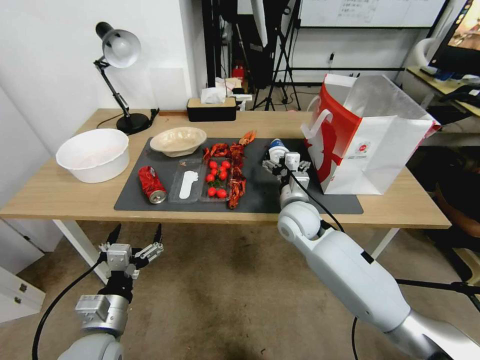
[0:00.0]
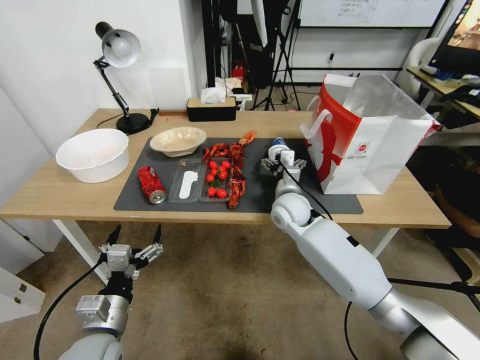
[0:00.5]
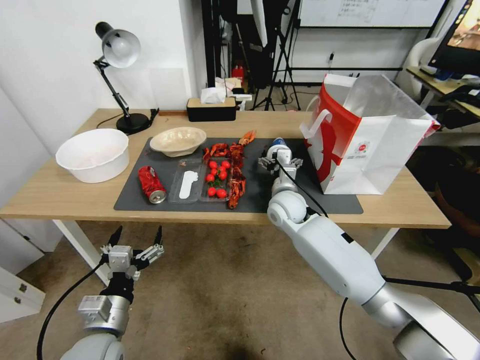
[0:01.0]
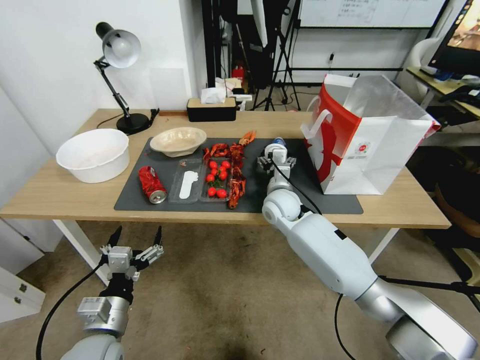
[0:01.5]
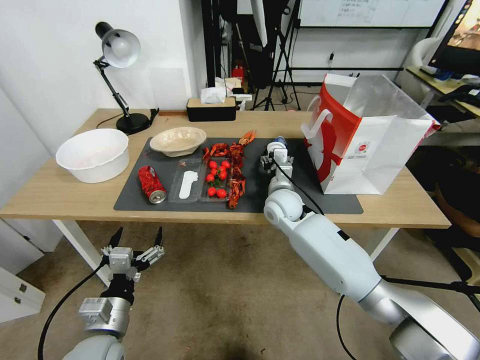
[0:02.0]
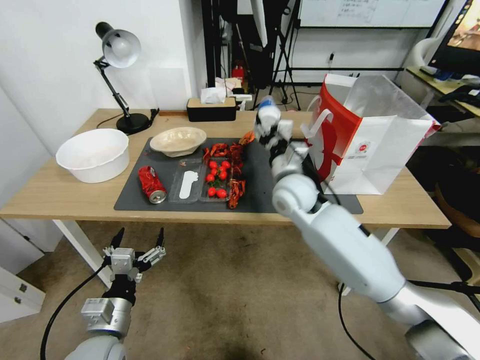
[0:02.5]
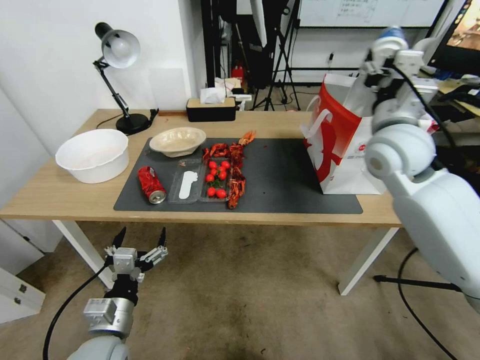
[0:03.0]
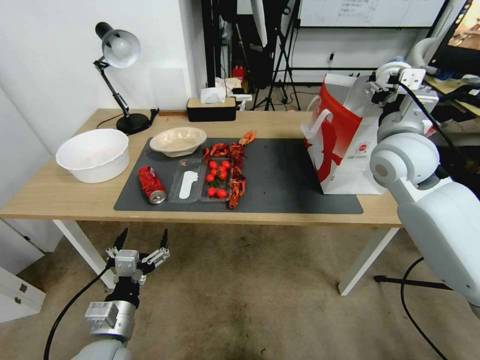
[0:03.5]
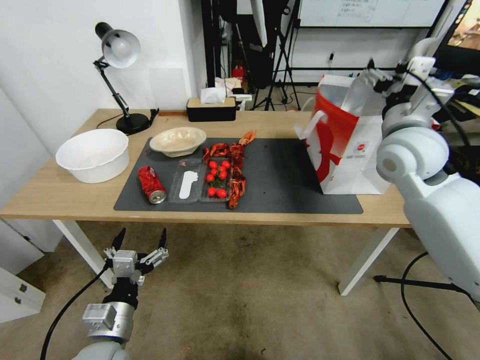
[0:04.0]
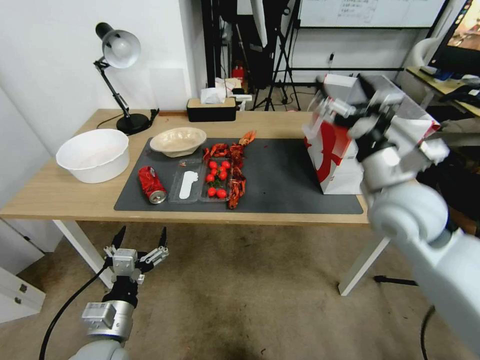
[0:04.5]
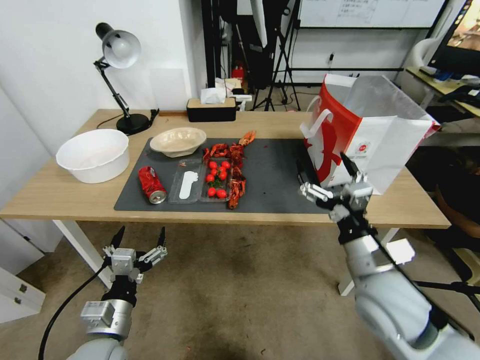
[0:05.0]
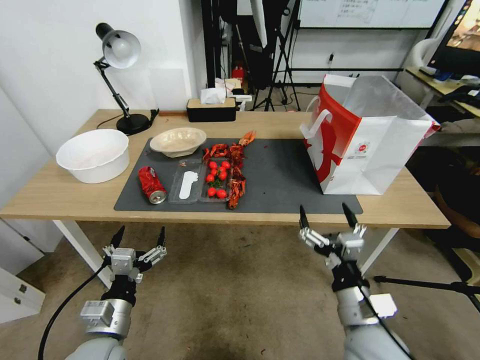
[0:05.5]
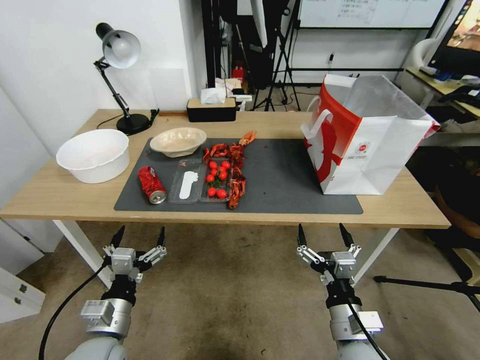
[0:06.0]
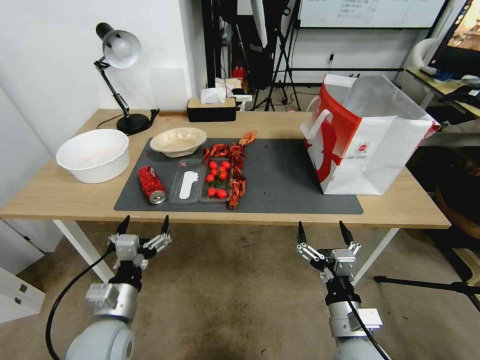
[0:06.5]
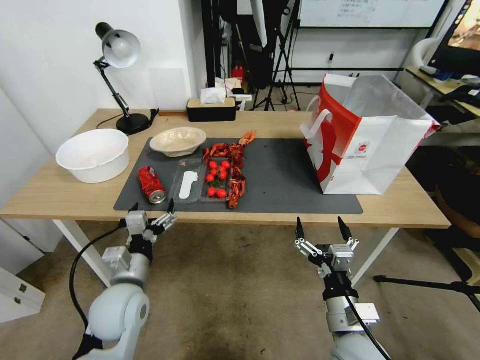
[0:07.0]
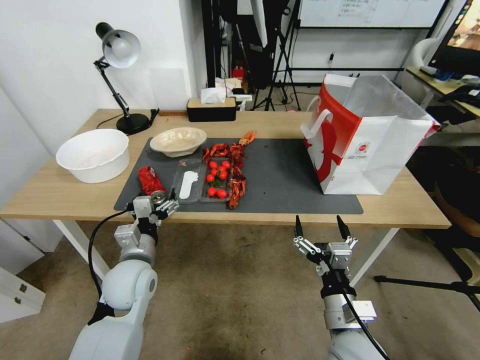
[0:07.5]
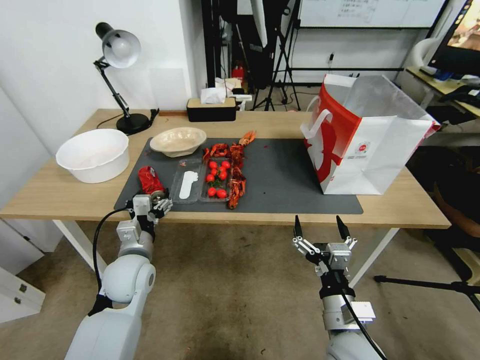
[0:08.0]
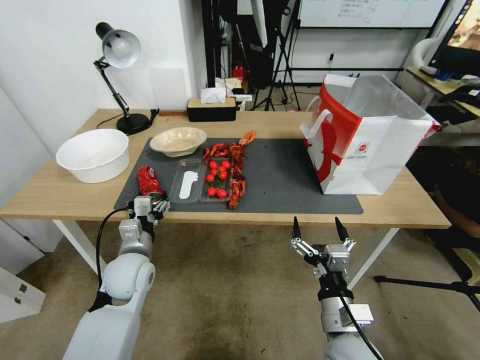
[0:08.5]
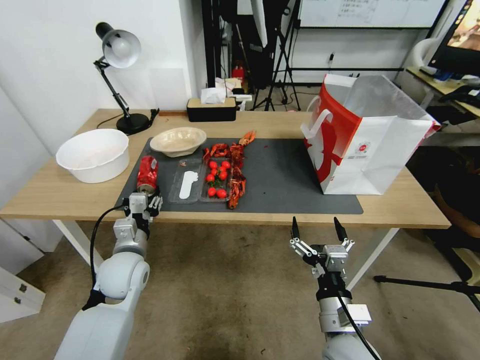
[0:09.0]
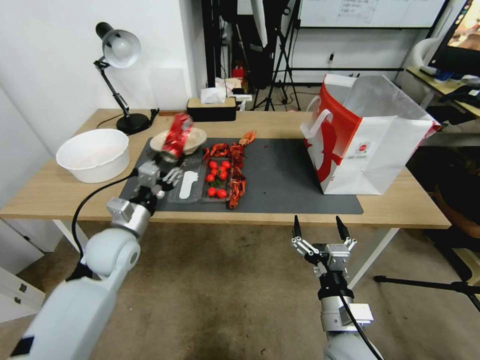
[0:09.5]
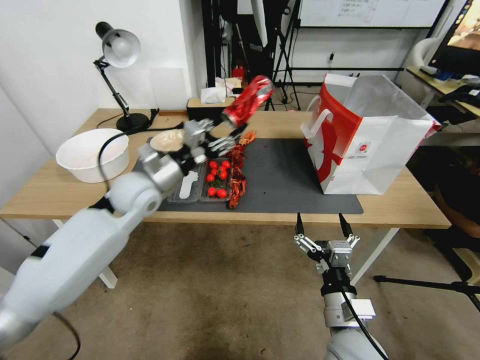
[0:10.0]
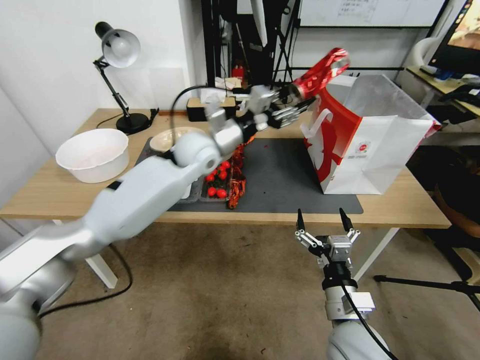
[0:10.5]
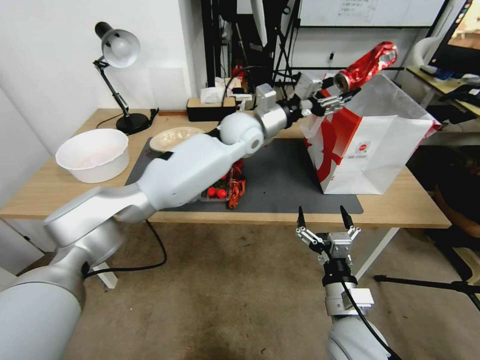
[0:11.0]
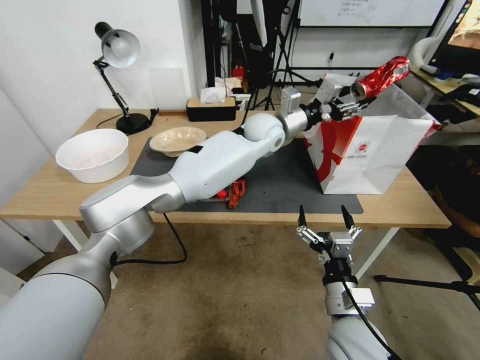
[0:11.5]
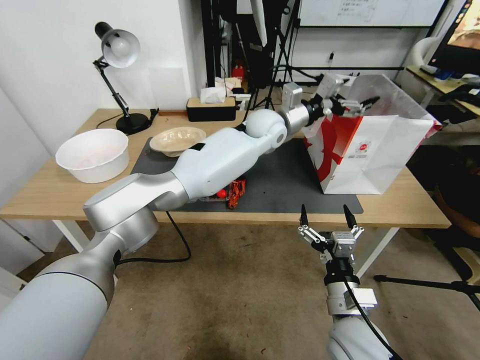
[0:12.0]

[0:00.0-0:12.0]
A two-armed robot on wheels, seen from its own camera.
0:00.0 to 0:02.0: The right gripper is displaced forward by approximately 5 cm, and closes up.
0:02.0 to 0:04.0: The right gripper moves upward and to the right, about 30 cm, and opens.
0:04.0 to 0:06.0: The right gripper travels downward and backward by some 40 cm.
0:06.0 to 0:08.0: The left gripper travels forward by about 15 cm.
0:08.0 to 0:10.0: The left gripper travels upward and forward by about 20 cm.
0:10.0 to 0:12.0: The left gripper goes some 35 cm to the right and forward, and opens its fingers.

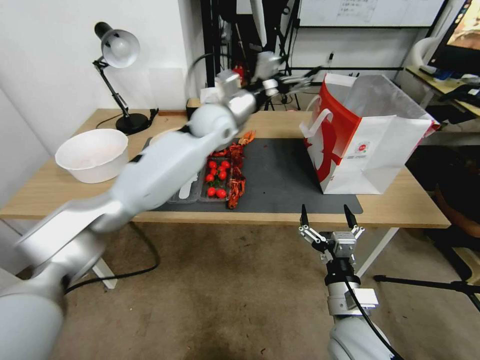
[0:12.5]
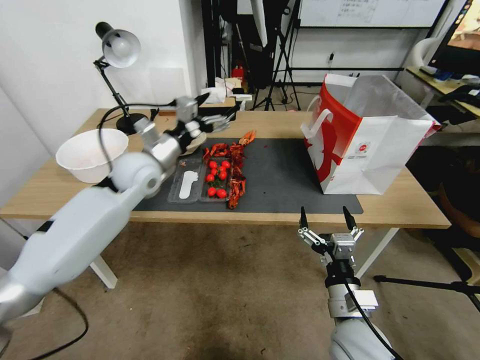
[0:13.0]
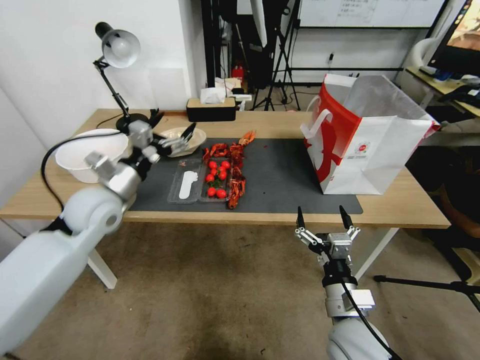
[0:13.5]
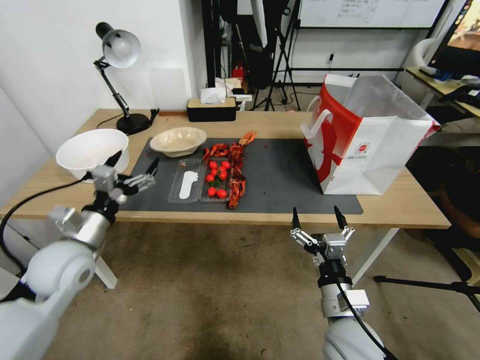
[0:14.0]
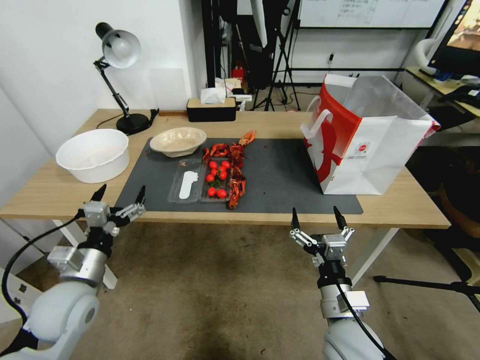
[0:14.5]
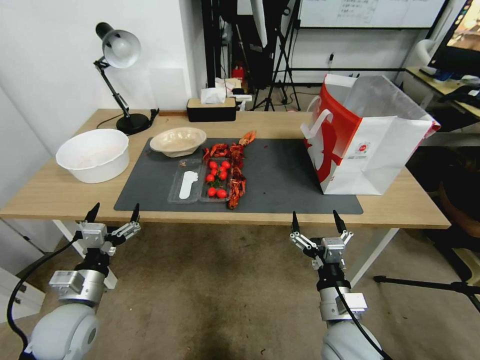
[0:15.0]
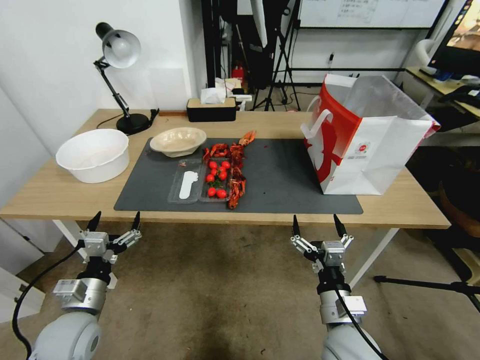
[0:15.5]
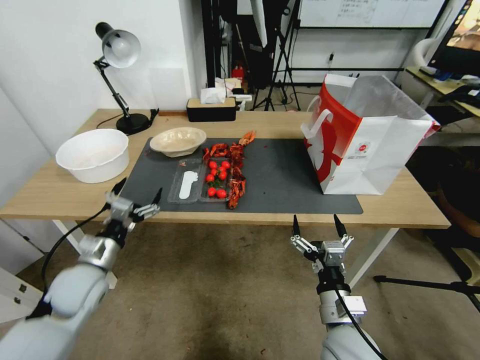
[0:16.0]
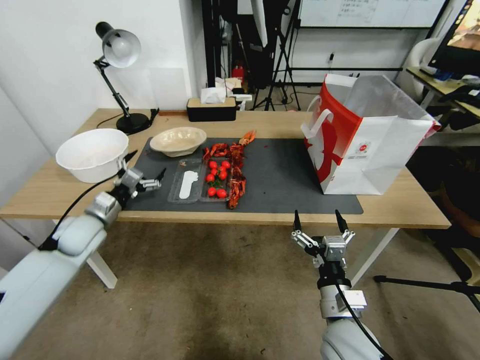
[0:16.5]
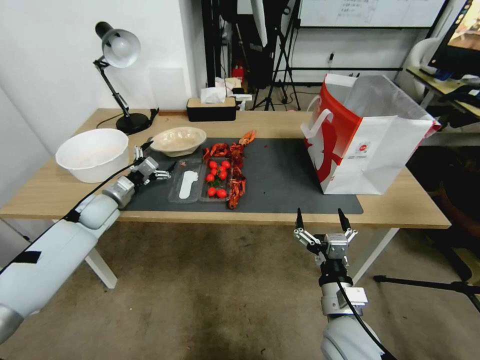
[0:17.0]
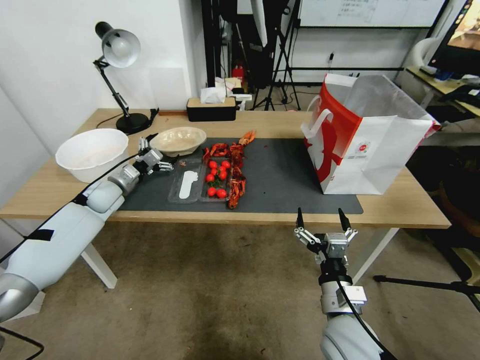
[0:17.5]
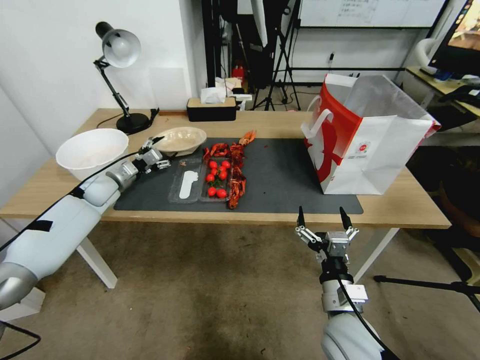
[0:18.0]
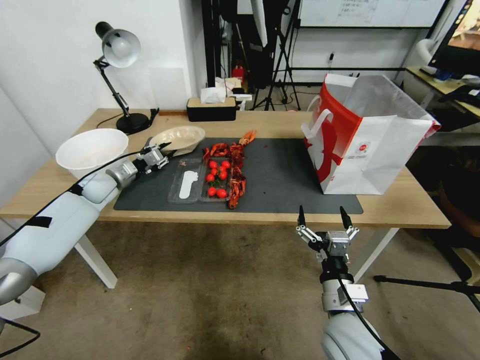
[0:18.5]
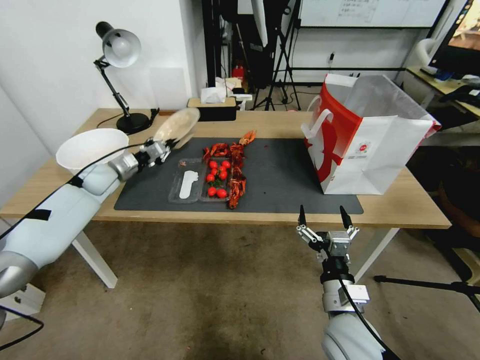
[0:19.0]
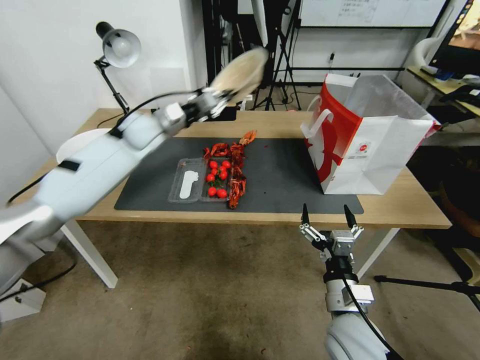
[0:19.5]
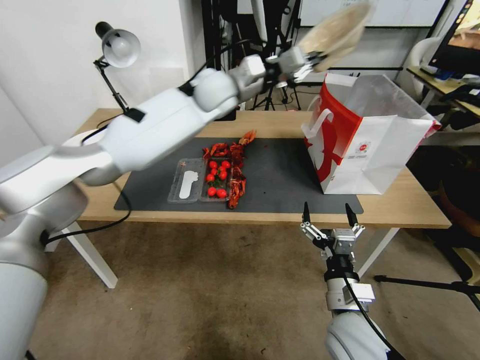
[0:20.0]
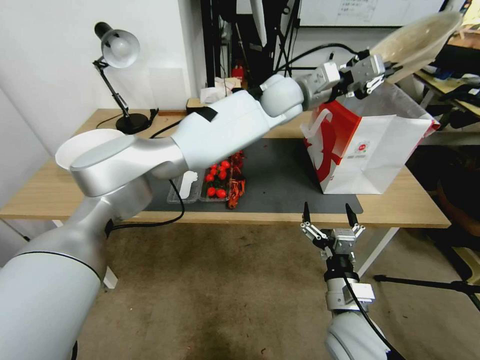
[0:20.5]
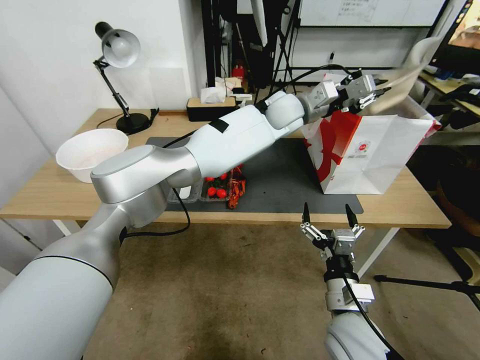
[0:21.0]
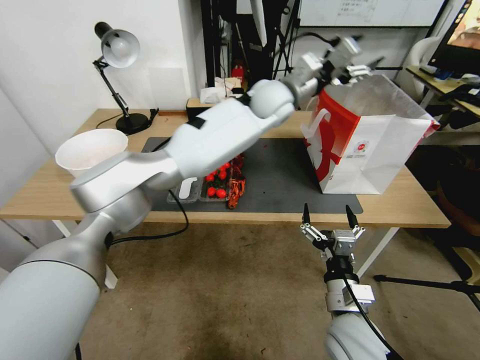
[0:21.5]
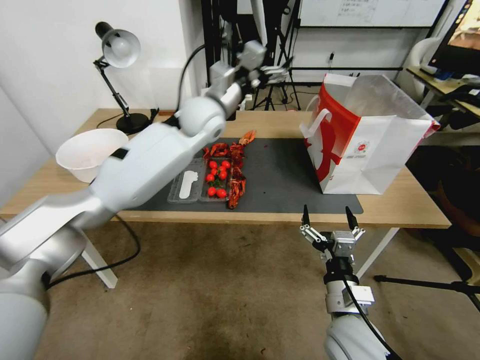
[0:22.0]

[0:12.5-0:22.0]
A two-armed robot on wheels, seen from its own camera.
0:12.5 to 0:14.5: The left gripper heads backward, to the left and downward, covering some 50 cm.
0:14.5 to 0:16.5: The left gripper shifts about 15 cm forward and to the left.
0:16.5 to 0:18.0: The left gripper heads forward, covering about 15 cm.
0:18.0 to 0:20.0: The left gripper heads to the right and upward, covering roughly 40 cm, and closes up.
0:20.0 to 0:22.0: The left gripper moves roughly 15 cm to the right and comes back, and opens up.

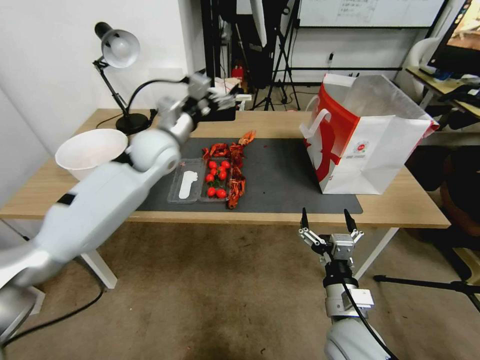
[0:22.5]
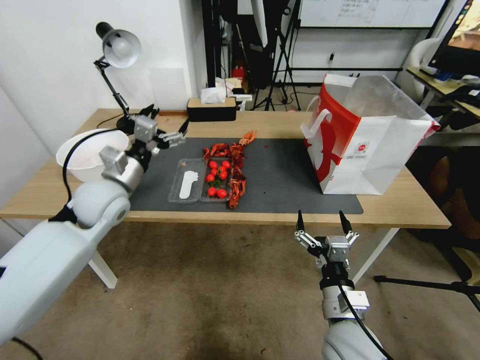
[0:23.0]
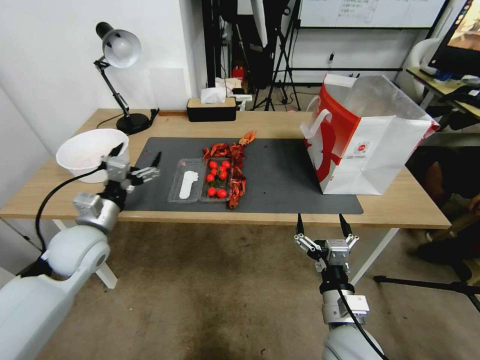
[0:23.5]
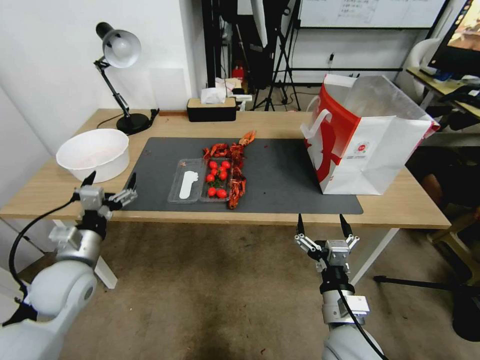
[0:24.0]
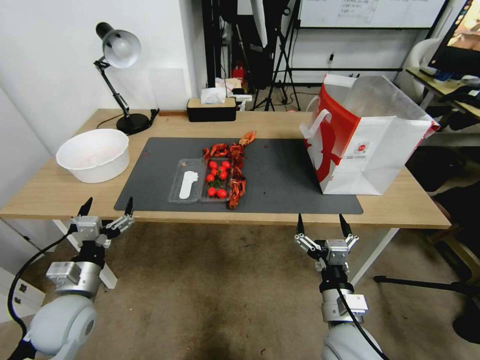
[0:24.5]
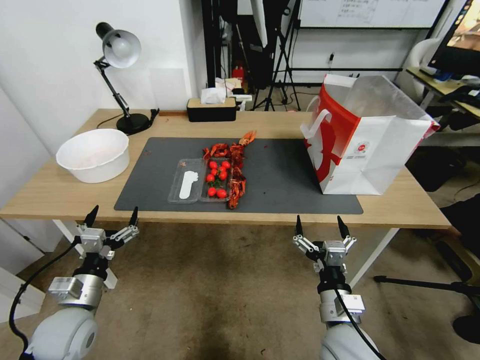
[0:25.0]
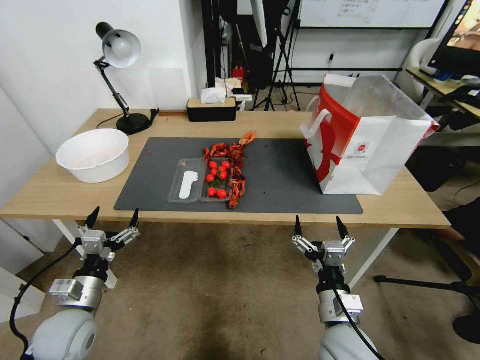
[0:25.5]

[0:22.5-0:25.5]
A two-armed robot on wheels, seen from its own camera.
0:22.5 to 0:24.0: The left gripper is displaced backward, to the left and downward by some 30 cm.
0:24.0 to 0:25.5: The left gripper is displaced downward and backward by roughly 10 cm.
